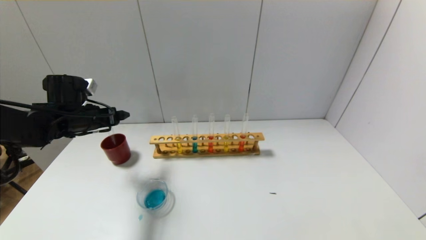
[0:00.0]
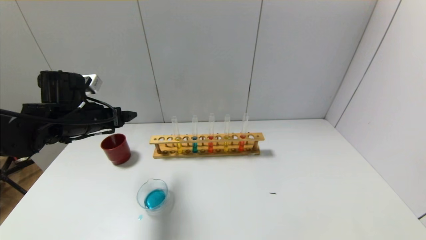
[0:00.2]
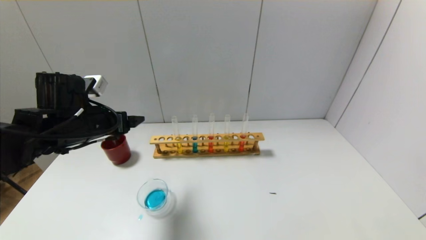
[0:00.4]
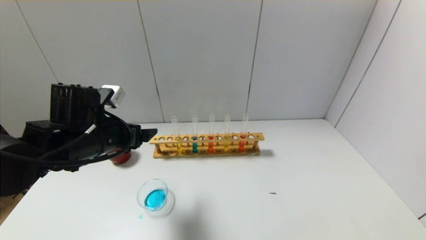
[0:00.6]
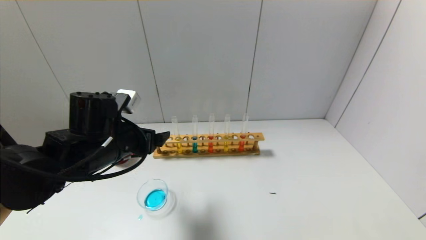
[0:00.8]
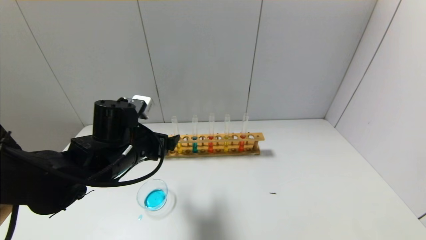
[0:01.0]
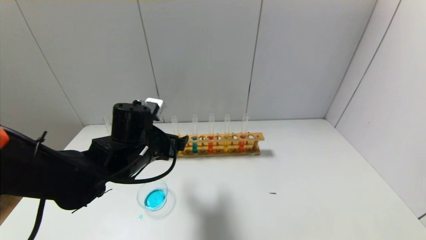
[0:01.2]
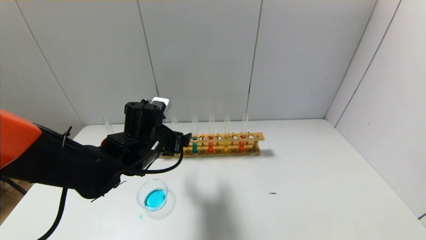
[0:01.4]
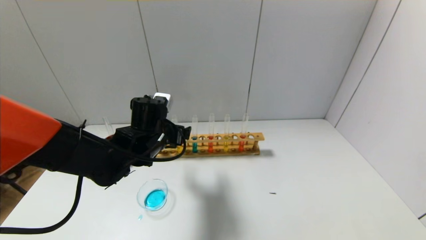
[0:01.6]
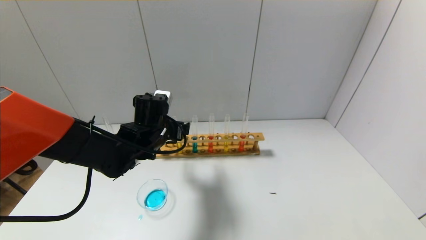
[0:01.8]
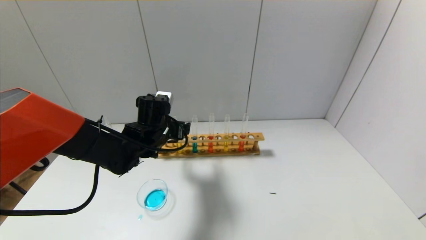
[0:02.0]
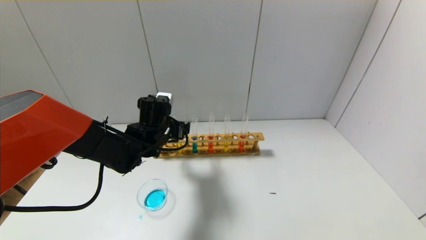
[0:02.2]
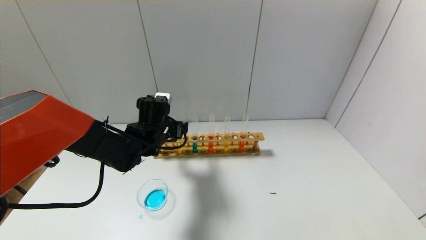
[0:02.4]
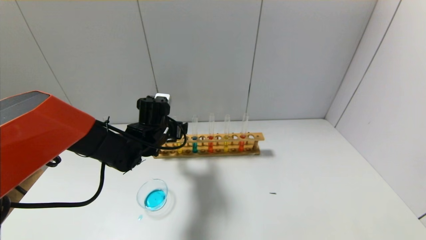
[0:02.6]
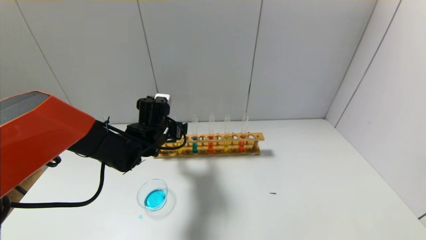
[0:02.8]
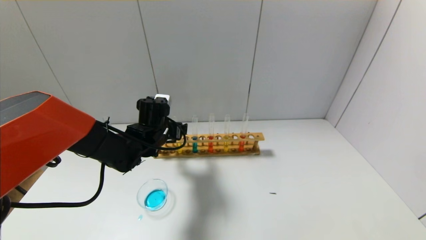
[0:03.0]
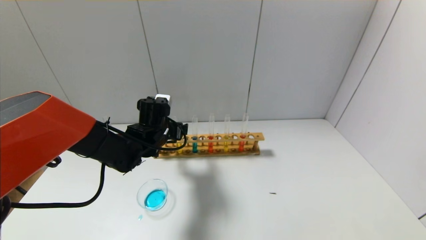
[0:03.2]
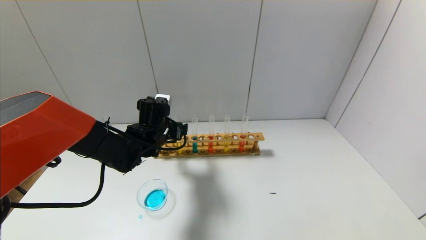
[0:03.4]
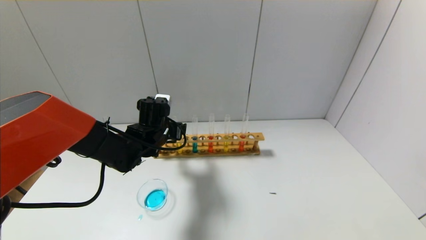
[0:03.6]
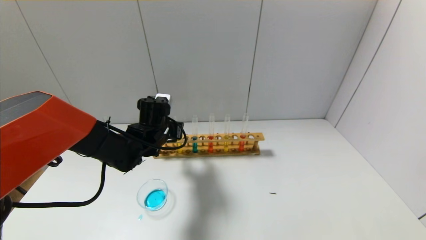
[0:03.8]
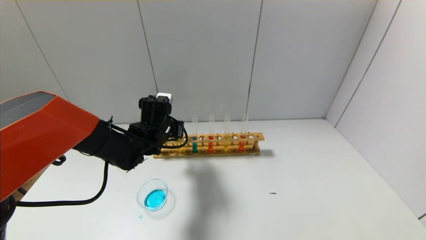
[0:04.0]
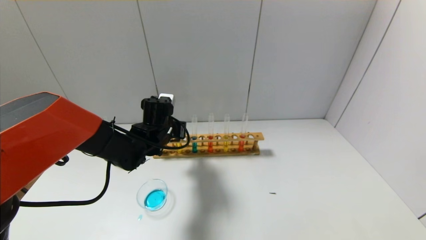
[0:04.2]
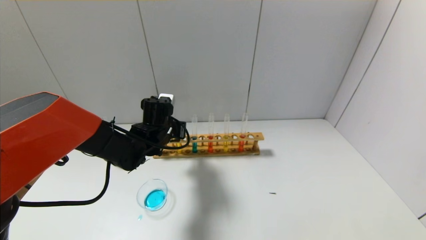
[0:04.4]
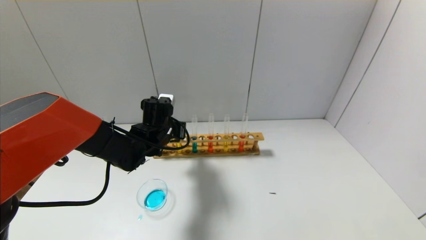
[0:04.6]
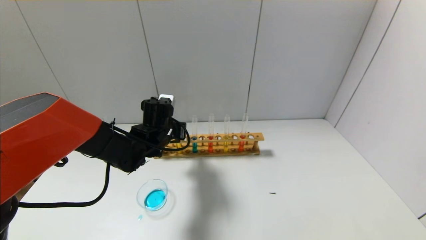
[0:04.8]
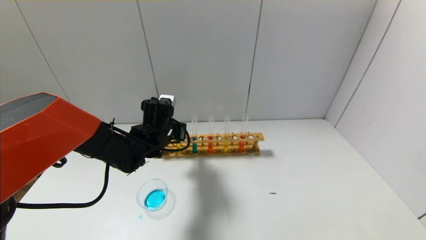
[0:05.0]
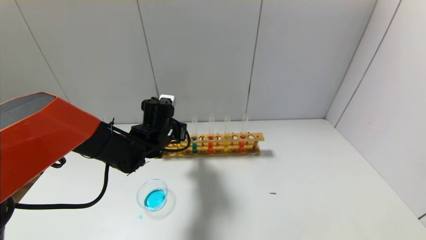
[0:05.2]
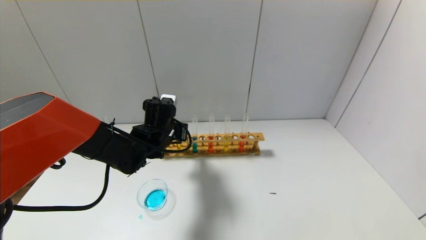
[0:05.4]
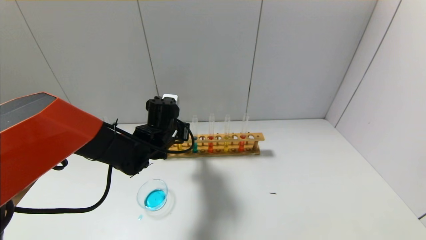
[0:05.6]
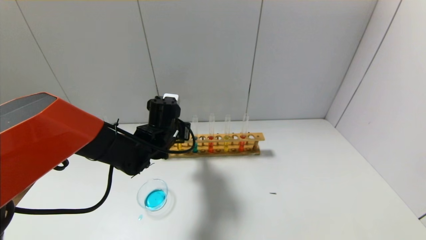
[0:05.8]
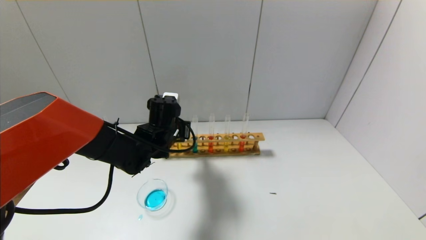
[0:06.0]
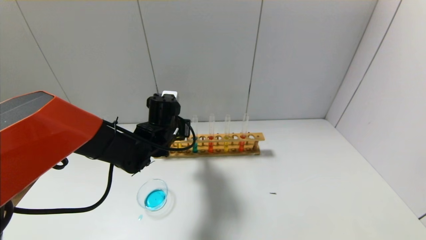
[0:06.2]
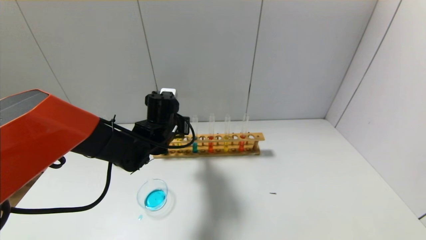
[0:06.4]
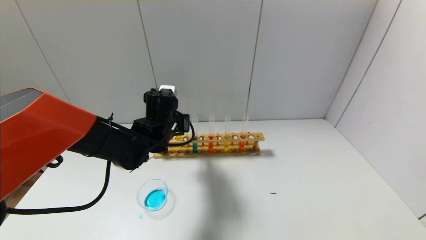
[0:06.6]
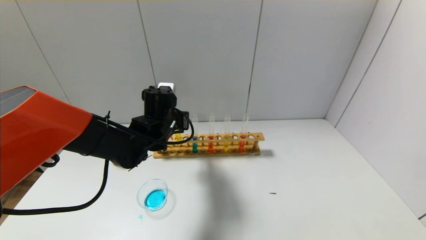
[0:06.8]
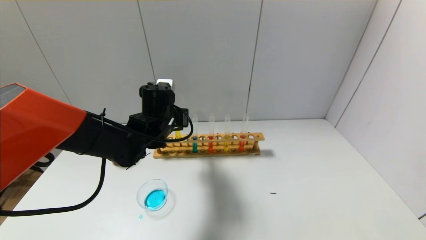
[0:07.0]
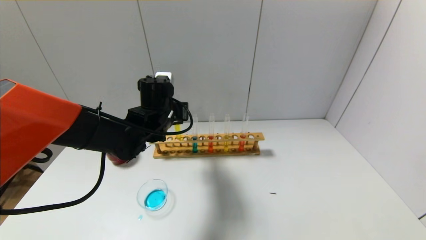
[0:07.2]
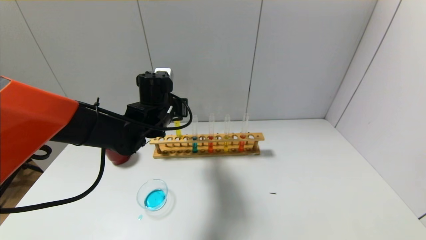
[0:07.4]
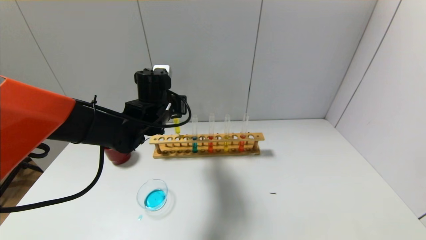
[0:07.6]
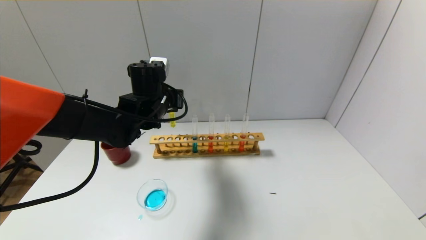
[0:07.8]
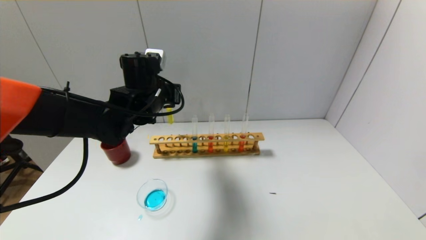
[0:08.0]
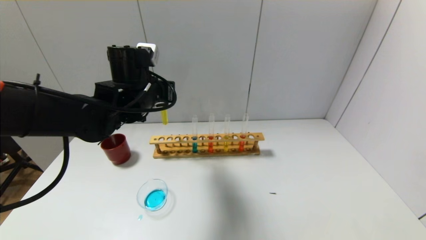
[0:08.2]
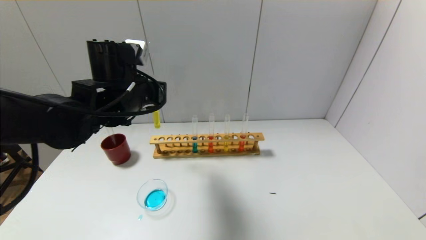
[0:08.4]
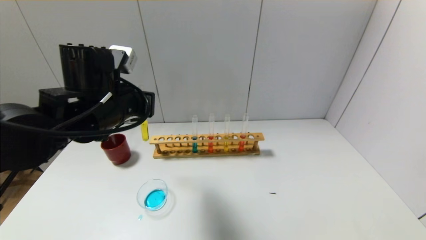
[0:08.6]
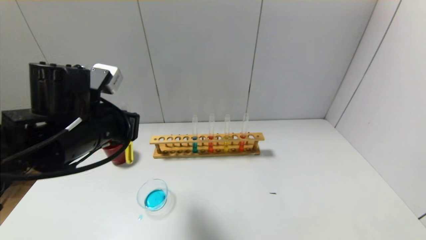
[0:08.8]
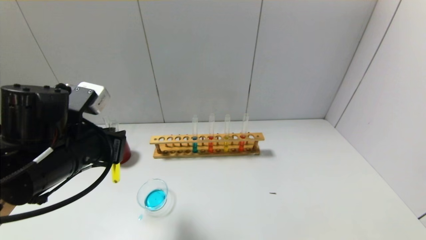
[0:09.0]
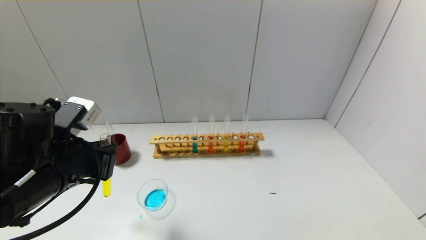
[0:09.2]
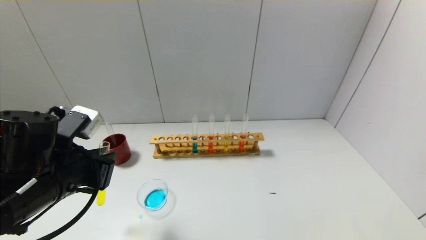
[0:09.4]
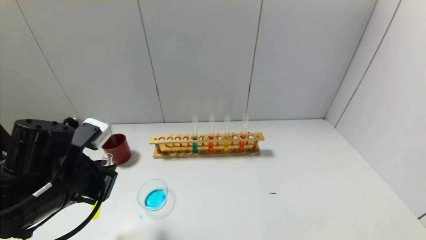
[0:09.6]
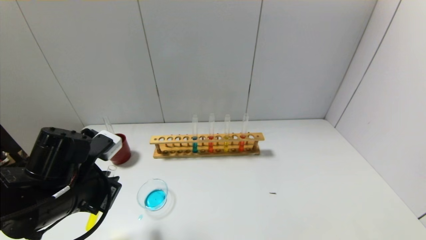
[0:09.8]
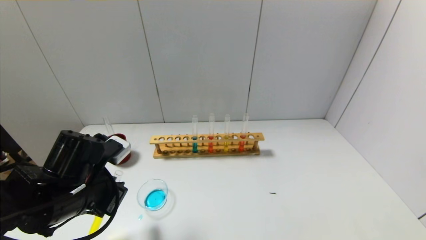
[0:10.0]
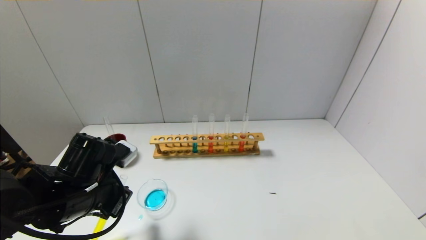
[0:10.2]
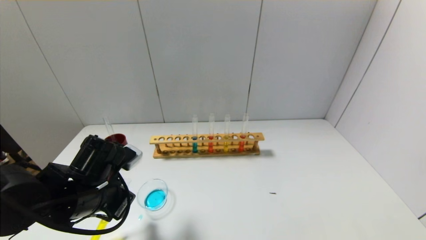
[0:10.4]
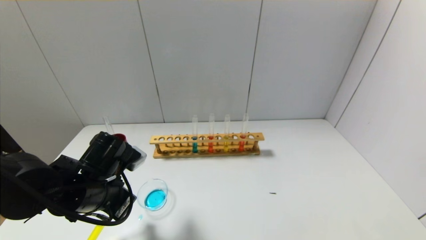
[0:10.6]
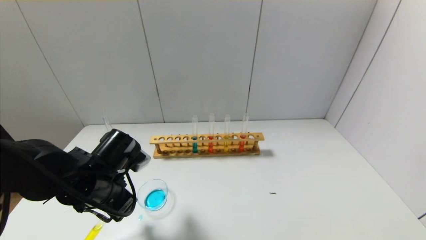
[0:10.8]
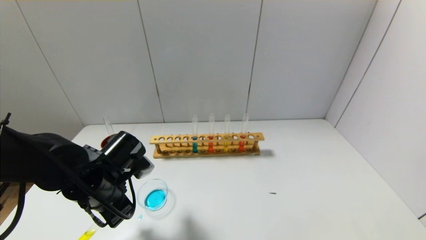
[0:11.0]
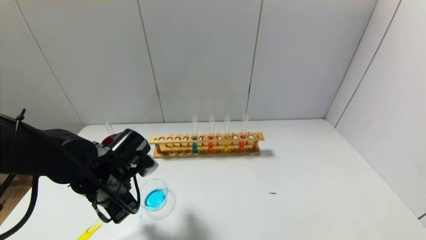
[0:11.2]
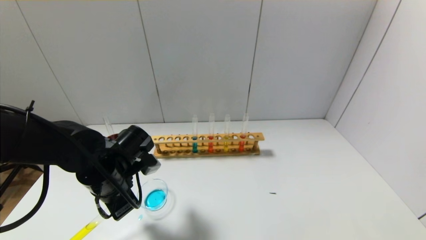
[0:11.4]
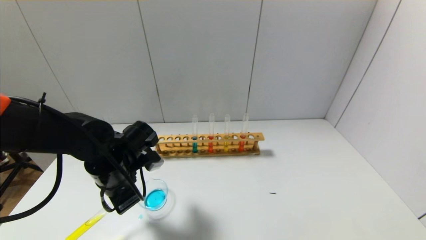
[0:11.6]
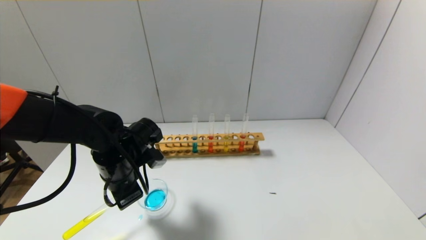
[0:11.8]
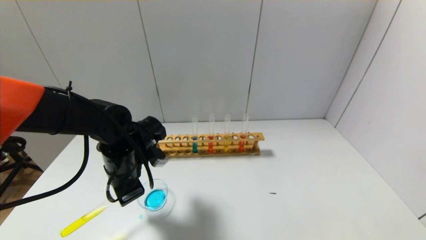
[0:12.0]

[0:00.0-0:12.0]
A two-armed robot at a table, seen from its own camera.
Step, 0.0 to 4.2 s: Grasp the yellow reagent with the left gripper.
0.0 to 1.6 s: The left gripper shifts approximately 15 cm to the right.
1.6 to 3.0 s: The left gripper ends up about 5 cm from where it was.
3.0 to 4.4 s: The left gripper closes up.
4.4 to 6.0 s: The grippers stay close to where they were, moving slightly.
6.0 to 7.6 s: The left gripper shifts approximately 5 cm upward.
7.6 to 9.0 s: The left gripper moves backward and to the left, roughly 20 cm.
9.0 to 10.4 s: The left gripper heads downward, covering some 10 cm.
10.4 to 12.0 s: The left gripper heads forward, covering approximately 5 cm.

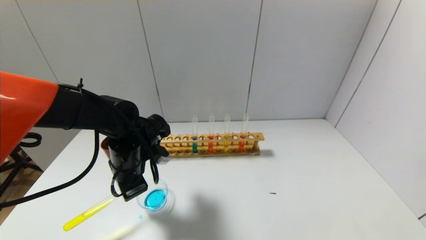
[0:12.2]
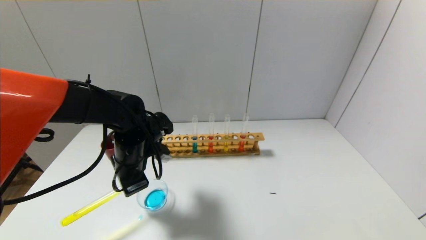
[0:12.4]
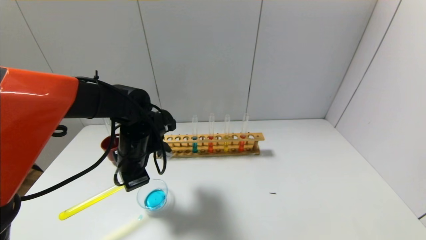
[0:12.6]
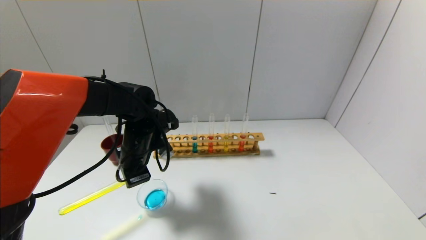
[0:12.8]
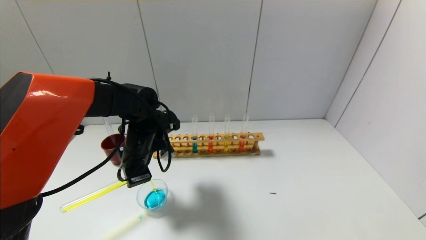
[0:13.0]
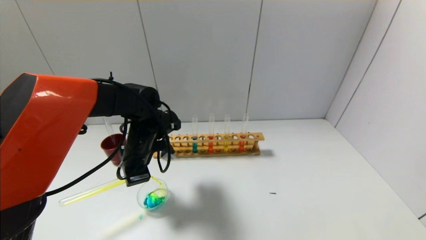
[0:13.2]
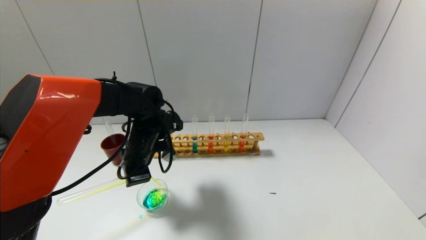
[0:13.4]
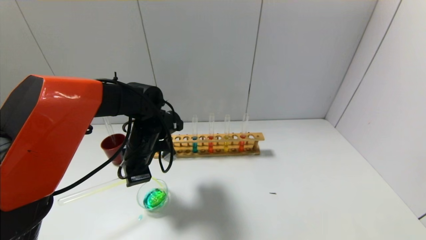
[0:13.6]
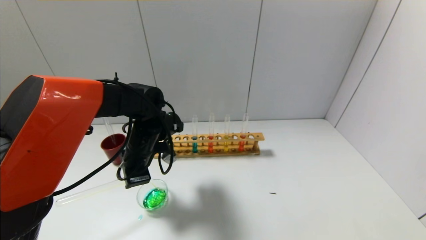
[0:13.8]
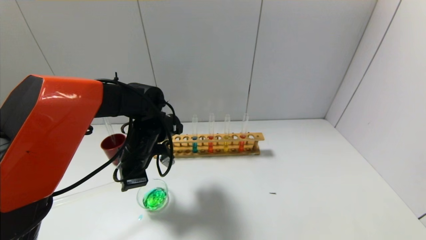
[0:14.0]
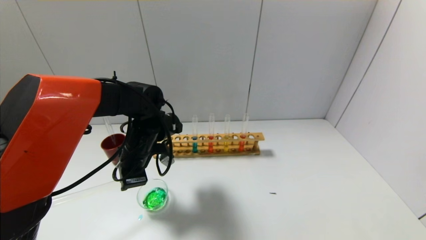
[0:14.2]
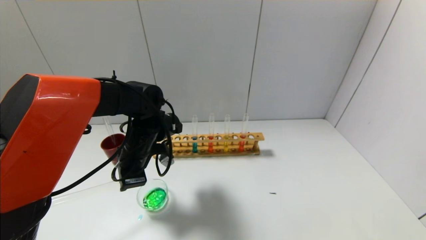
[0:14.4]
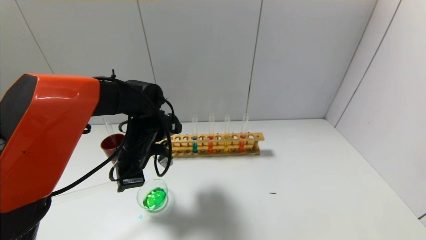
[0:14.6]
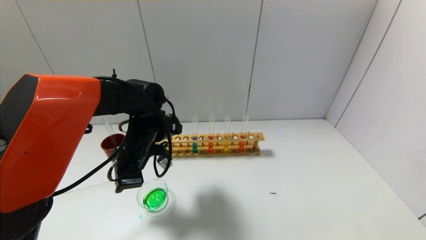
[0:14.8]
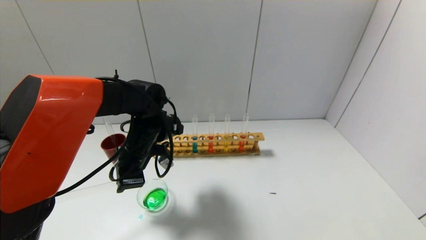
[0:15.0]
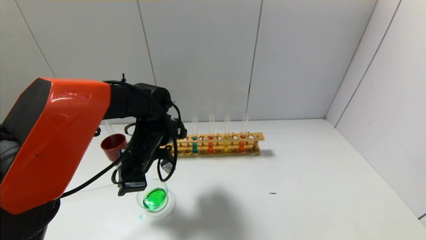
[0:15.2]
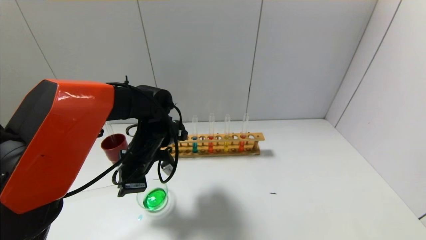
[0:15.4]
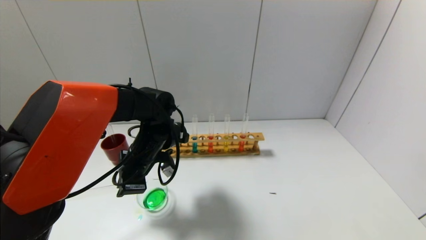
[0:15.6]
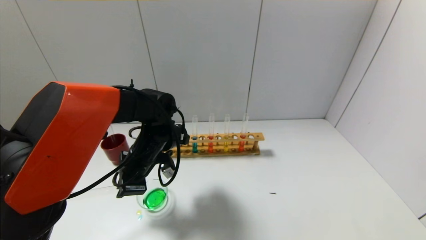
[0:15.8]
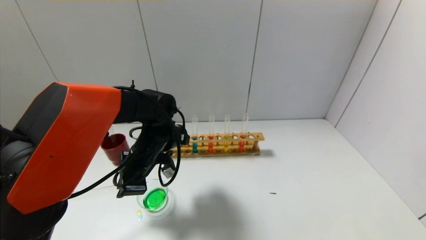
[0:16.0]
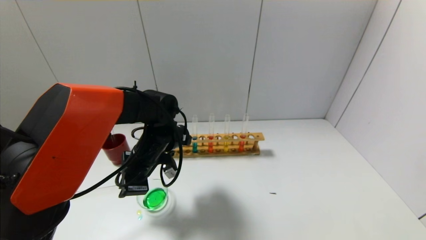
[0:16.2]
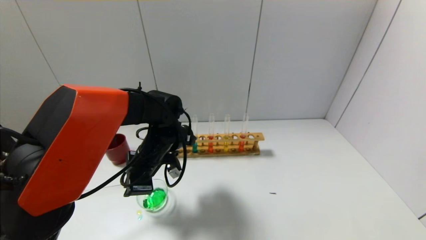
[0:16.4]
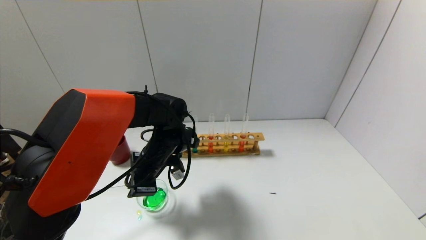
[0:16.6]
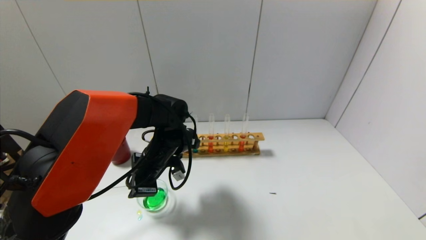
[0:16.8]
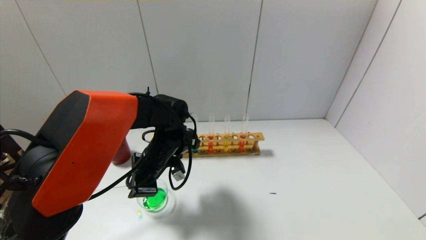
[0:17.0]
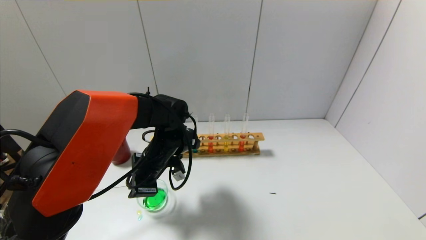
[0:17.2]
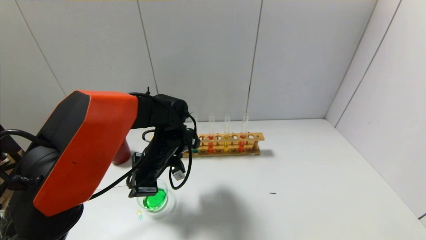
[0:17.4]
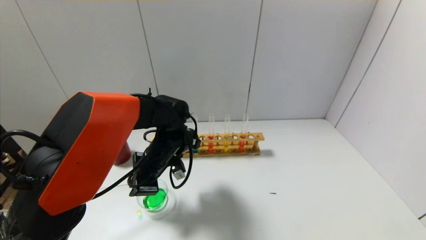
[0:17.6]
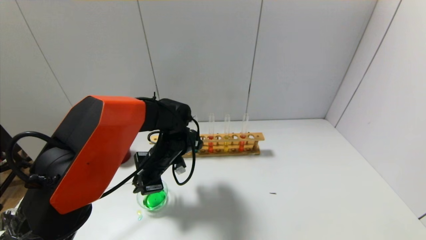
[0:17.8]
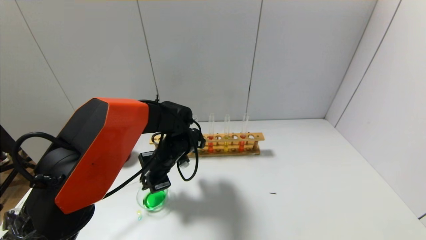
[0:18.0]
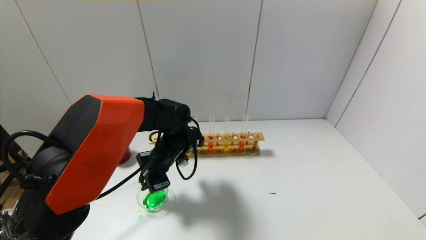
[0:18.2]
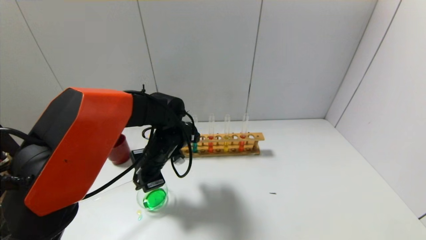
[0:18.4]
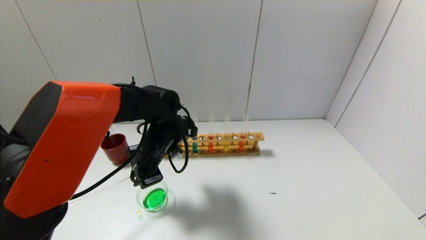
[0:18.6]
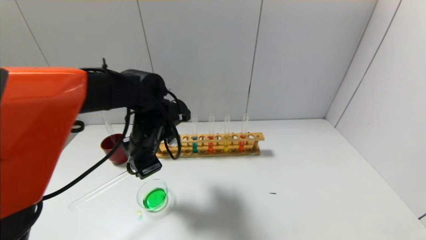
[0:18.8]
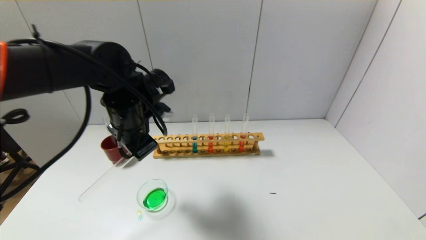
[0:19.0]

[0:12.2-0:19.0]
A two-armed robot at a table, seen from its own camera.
Step, 12.2 to 18.2 s: Pour the yellow reagent into the graduated cylinder with the left gripper.
12.2 to 13.6 s: The grippers make only small movements.
13.6 to 17.6 s: There are only small adjustments of the grippers.
17.6 to 19.0 s: The left gripper goes about 10 cm upward.
